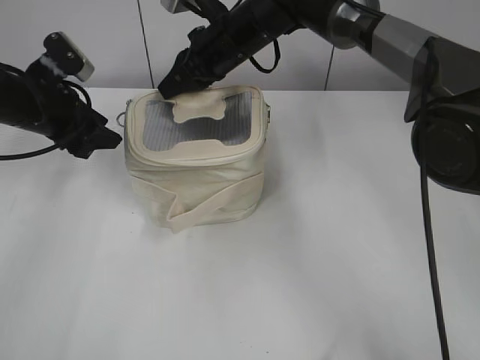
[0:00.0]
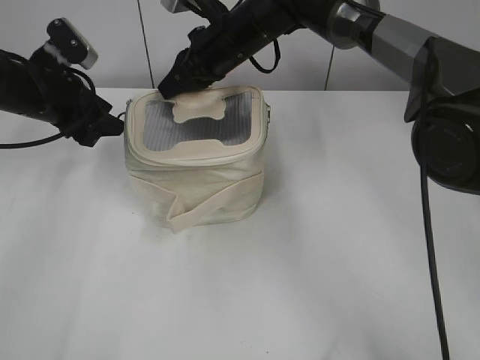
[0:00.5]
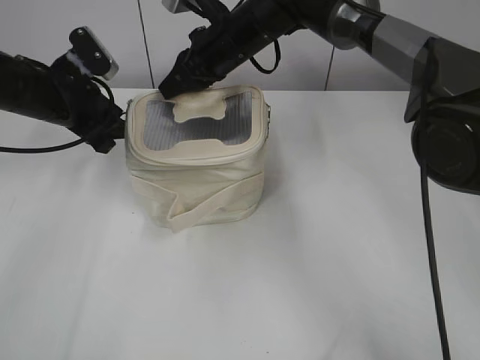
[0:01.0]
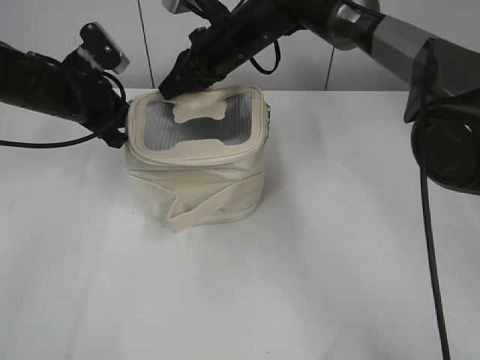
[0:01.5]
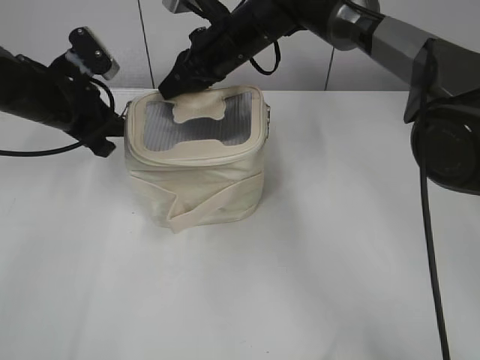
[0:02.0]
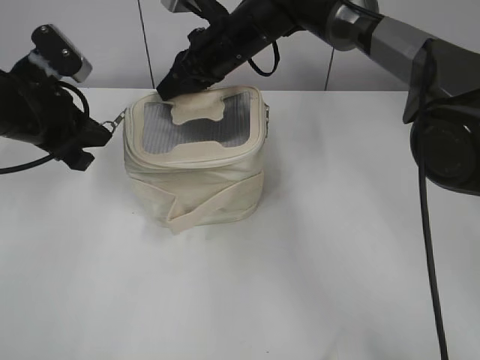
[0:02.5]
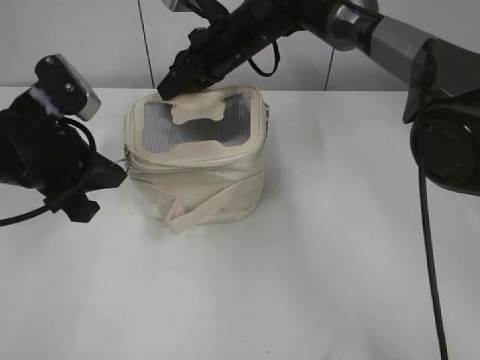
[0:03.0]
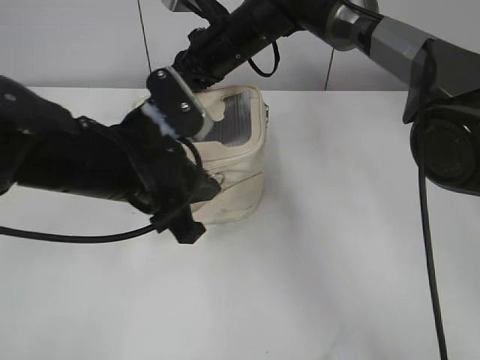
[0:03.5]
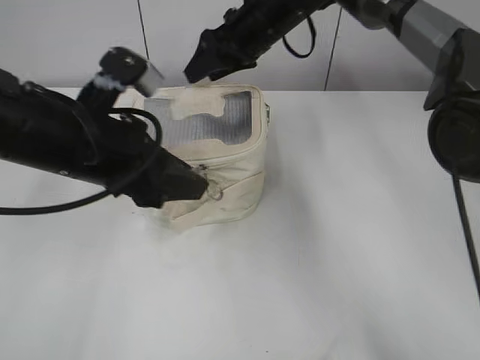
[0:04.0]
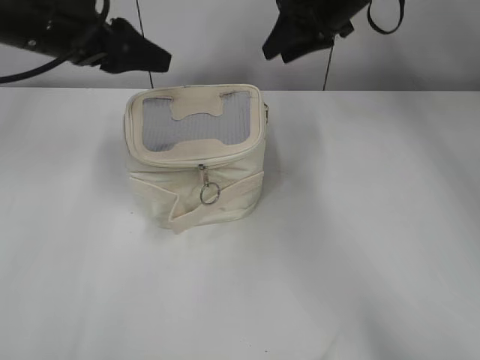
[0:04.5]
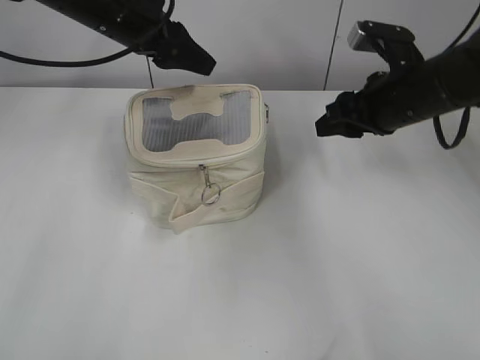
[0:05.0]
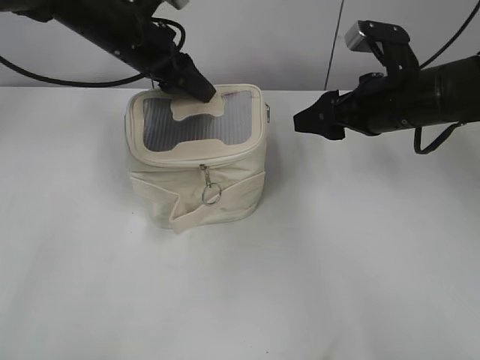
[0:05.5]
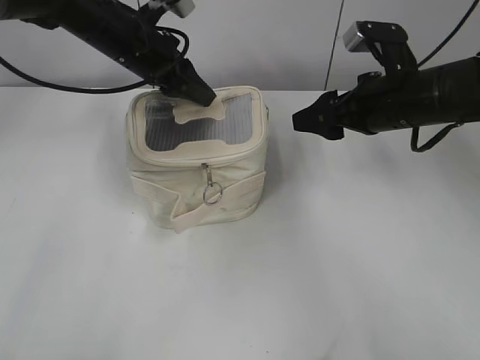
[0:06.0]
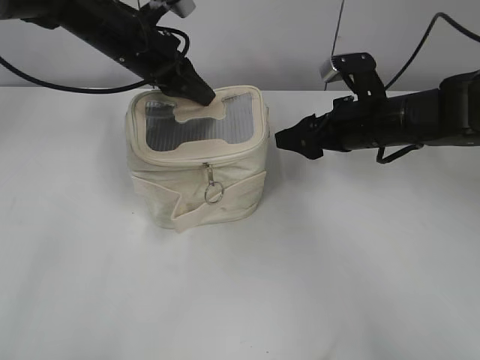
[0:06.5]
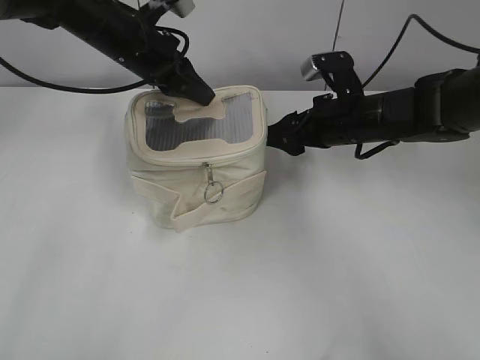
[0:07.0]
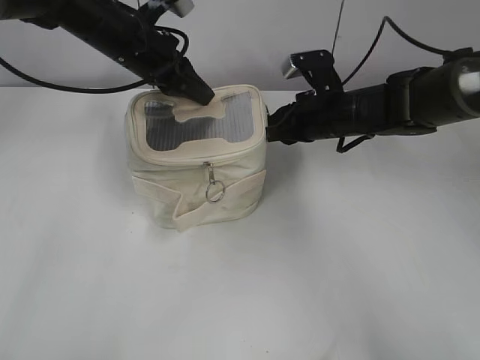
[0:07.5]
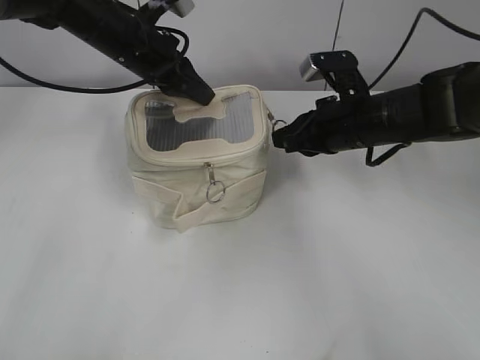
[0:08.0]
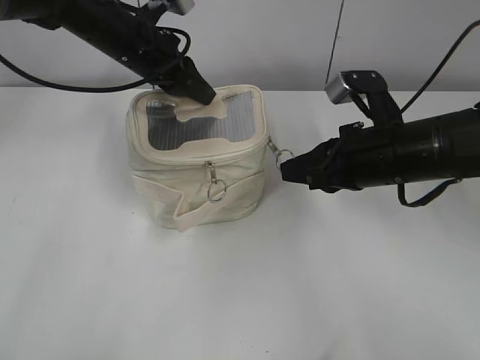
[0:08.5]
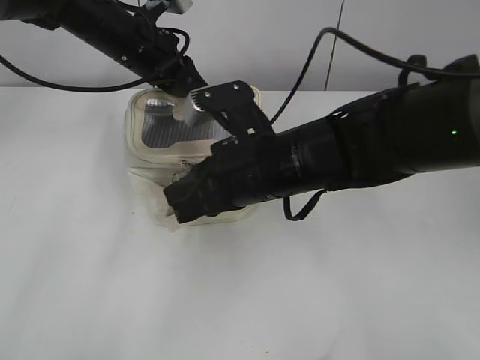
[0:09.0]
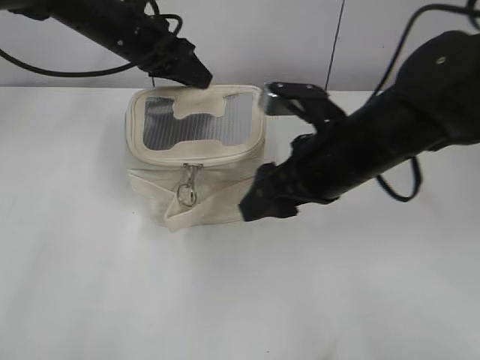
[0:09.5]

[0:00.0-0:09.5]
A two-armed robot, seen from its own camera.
Step, 0:00.0 to 0:03.5: Zip up the bag with your left hand.
Step, 0:04.5 to 0:09.0: Zip up the bag with your right hand.
0:00.0 to 0:02.0: The left gripper closes its fingers.
0:02.0 to 0:04.0: The right gripper opens its fingers; the left gripper goes roughly 15 cm backward and to the right, and opens.
0:04.0 to 0:05.5: The right gripper shifts about 20 cm to the right and backward. The left gripper goes approximately 20 cm forward.
0:05.5 to 0:07.5: The left gripper closes up. The right gripper moves downward, forward and to the left, some 10 cm, and closes its fingers.
0:07.5 to 0:09.5: The right gripper goes about 15 cm backward and upward, and opens up. The left gripper opens.

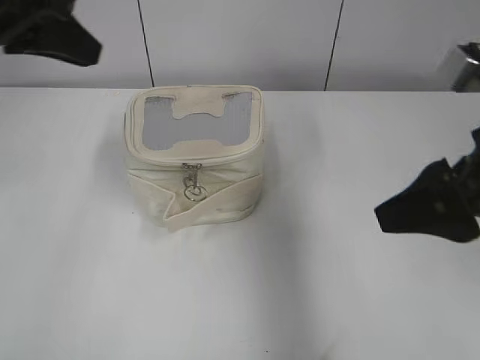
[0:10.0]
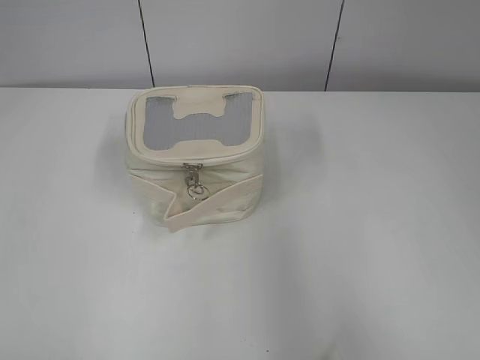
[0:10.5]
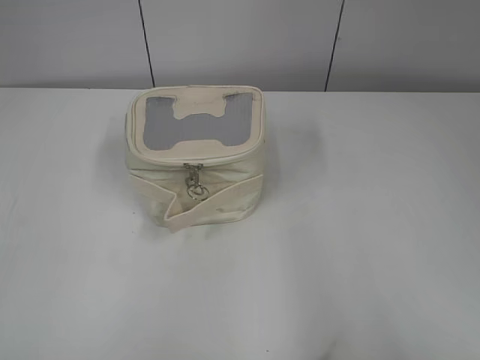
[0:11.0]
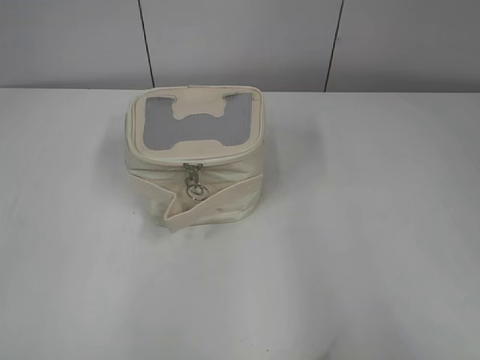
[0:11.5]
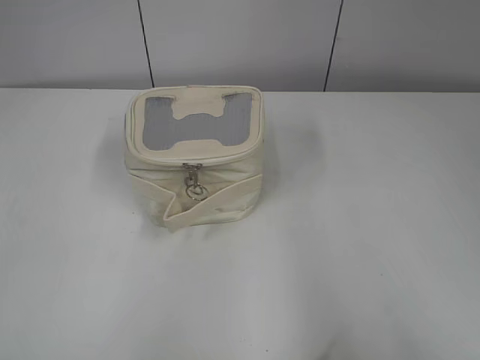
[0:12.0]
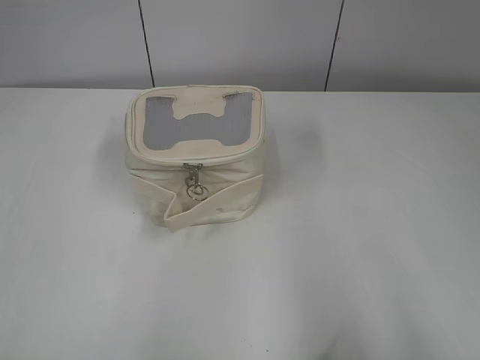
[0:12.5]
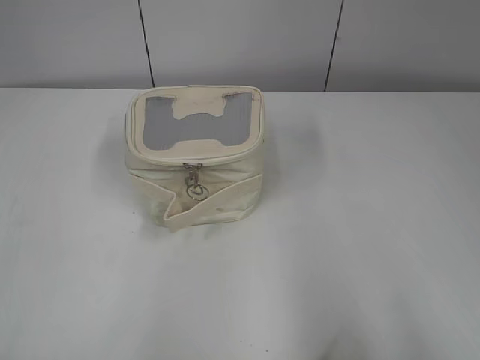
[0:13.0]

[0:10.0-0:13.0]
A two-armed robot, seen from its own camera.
0:10.0 to 0:11.5: The left gripper travels backward by some 30 cm, and opens; the right gripper is displaced backward and to the right by approximately 25 cm.

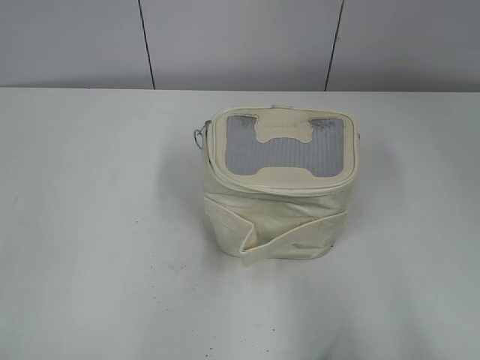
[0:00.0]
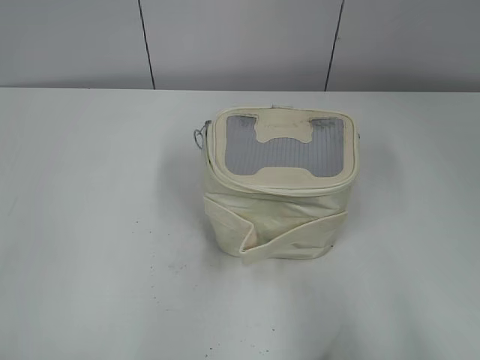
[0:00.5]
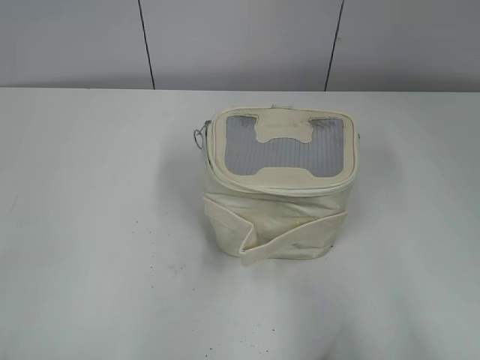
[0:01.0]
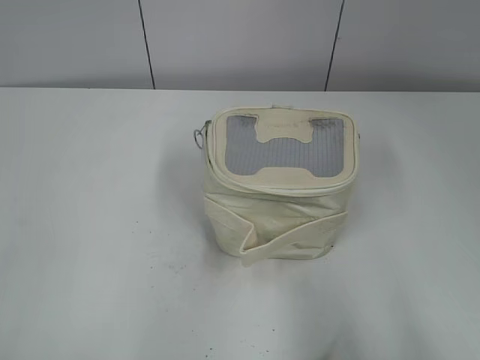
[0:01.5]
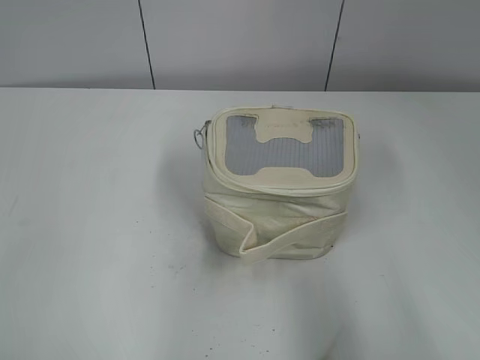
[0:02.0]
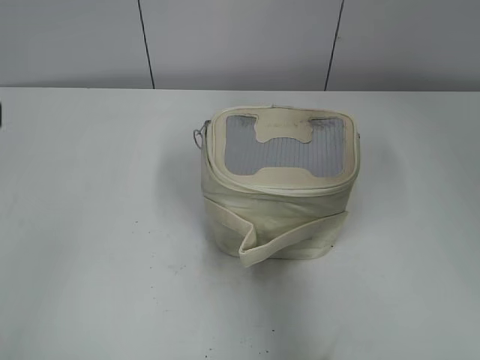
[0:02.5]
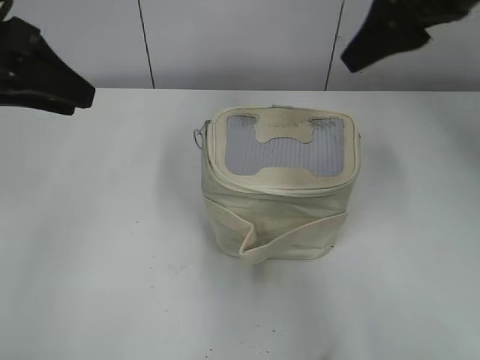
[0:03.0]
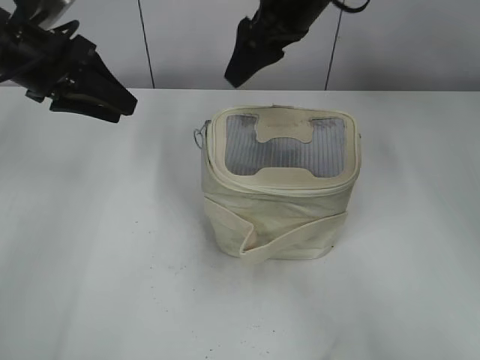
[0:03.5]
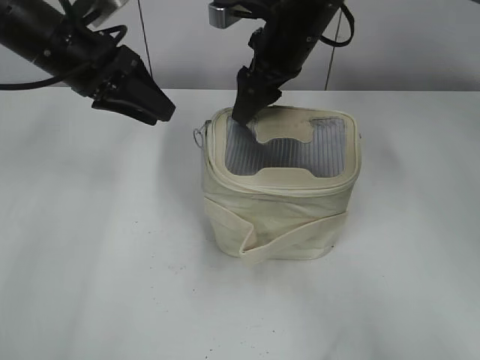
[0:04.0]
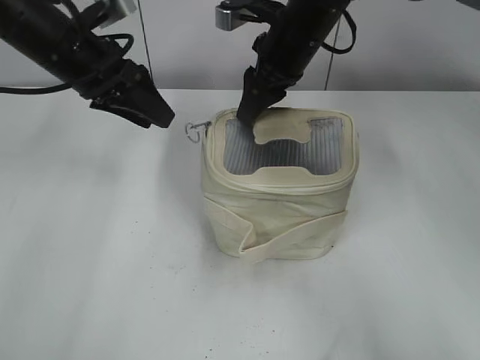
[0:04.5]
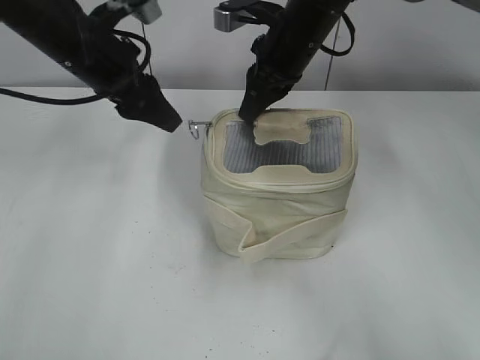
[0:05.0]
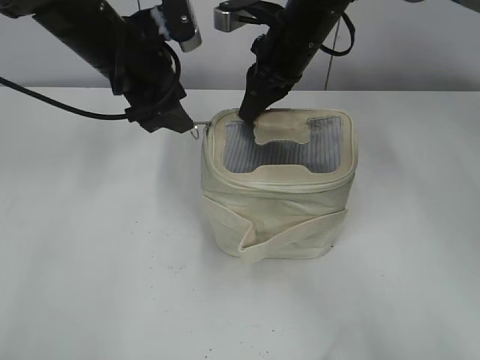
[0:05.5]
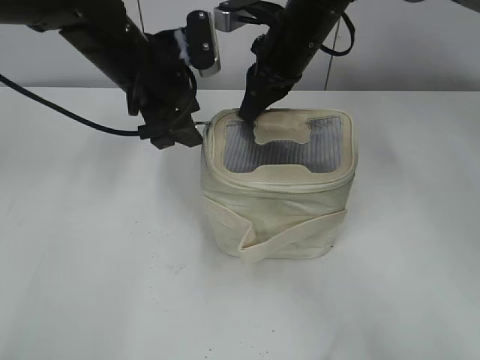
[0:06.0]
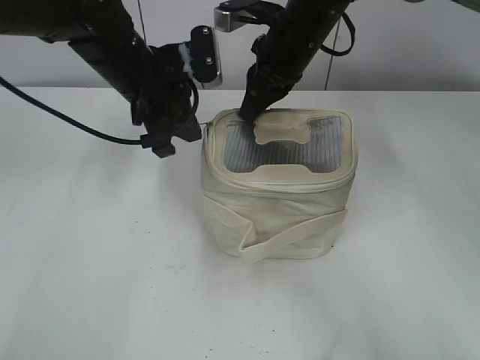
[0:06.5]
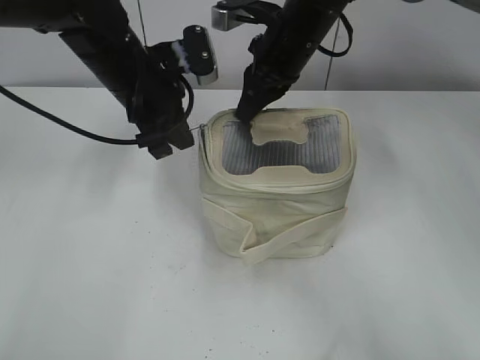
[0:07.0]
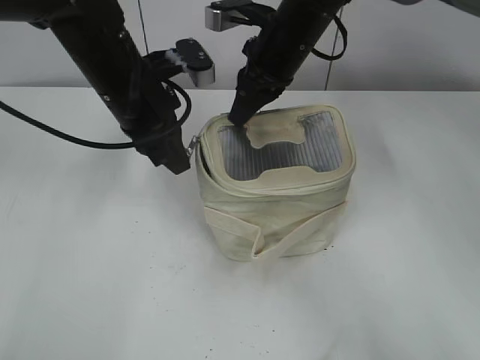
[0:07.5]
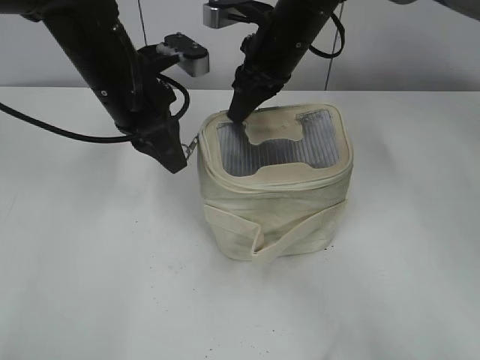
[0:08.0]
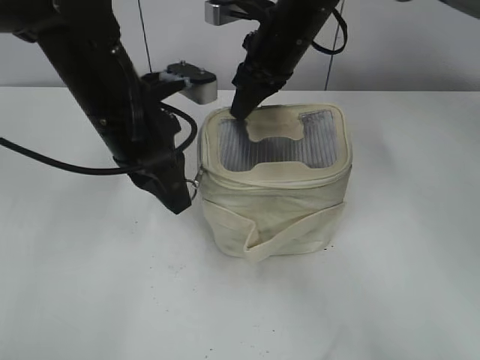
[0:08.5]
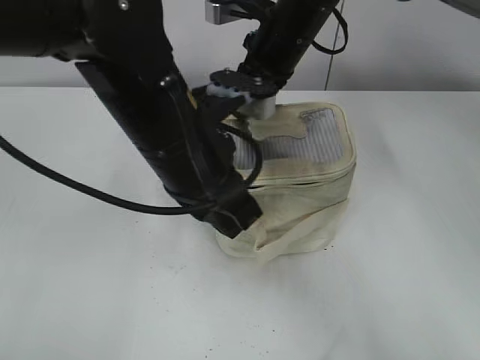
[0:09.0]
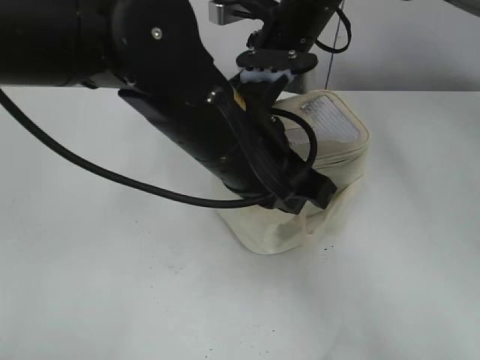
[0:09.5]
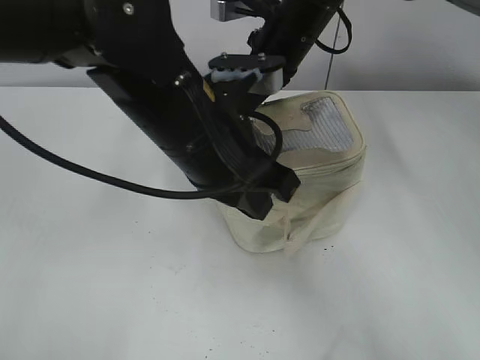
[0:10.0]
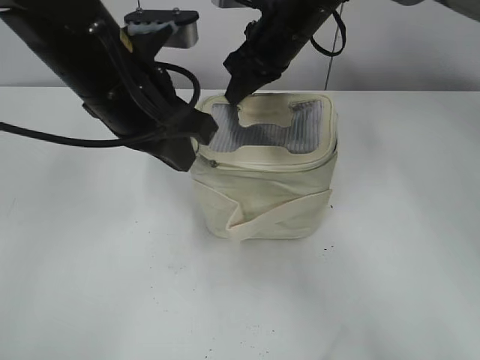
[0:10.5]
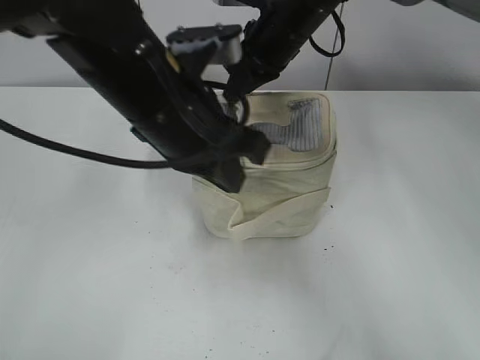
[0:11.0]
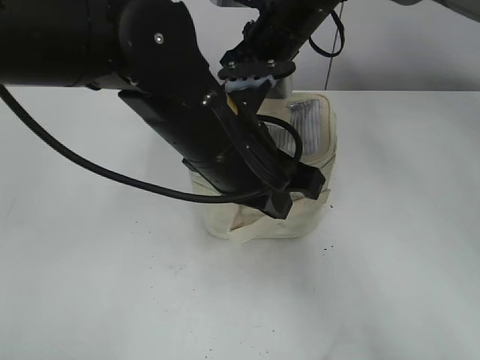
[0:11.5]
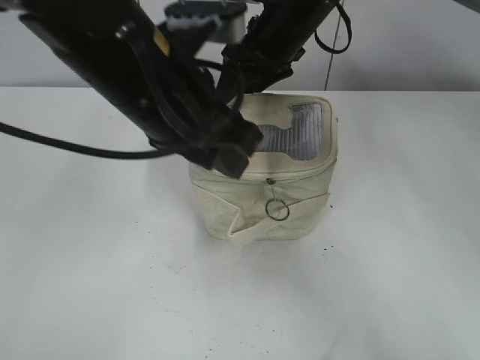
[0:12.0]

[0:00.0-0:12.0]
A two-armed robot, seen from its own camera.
Step, 0:00.0 to 0:11.5: Zip up the bag with your left hand.
0:02.0 to 0:04.0: The right gripper is displaced forward and to the left by roughly 50 cm. The left gripper heads forward and to the right, covering roughly 35 cm.
0:04.0 to 0:06.0: The right gripper closes up. The left gripper heads to the right, covering some 5 cm.
0:06.0 to 0:08.0: The left gripper closes its fingers.
0:08.0 to 0:10.0: The left gripper shifts roughly 15 cm backward and to the right.
0:10.0 to 0:12.0: The right gripper opens up. The left gripper goes left and right, about 10 cm each way, reversing 2 times, and opens.

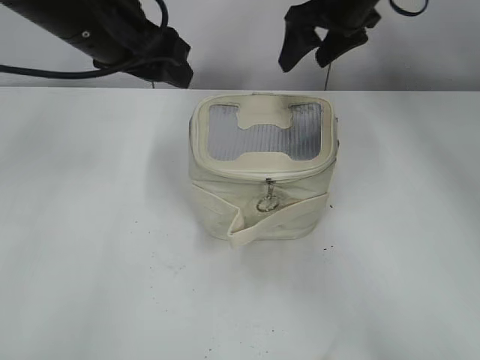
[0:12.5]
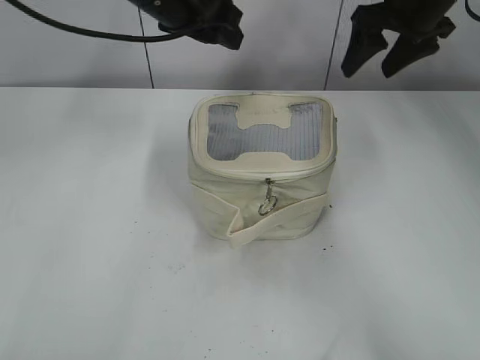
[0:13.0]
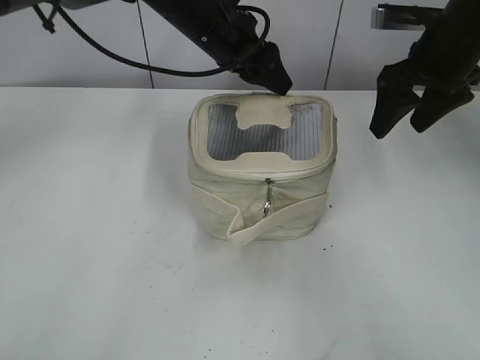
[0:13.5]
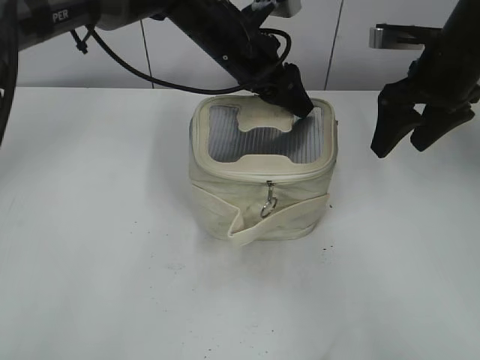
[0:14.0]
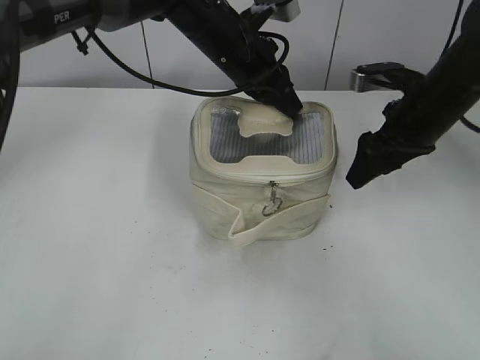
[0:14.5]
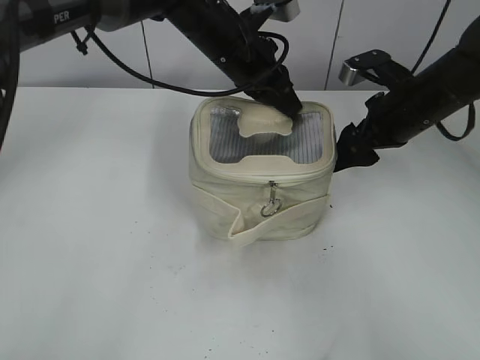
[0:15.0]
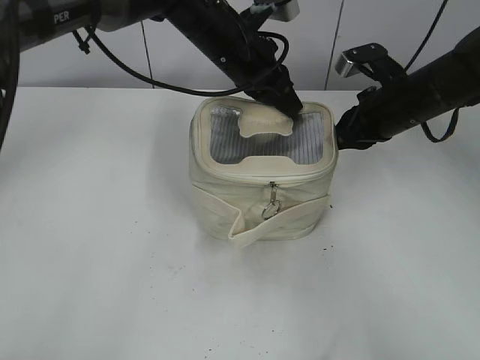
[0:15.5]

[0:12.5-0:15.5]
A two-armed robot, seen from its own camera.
0:12.5 to 0:14.0: The left gripper travels to the right, forward and downward by approximately 20 cm. Meanwhile the right gripper is displaced to the right and backward by roughly 15 cm.
0:14.0 to 0:15.5: The right gripper shifts roughly 5 cm downward, and closes up. The left gripper closes.
